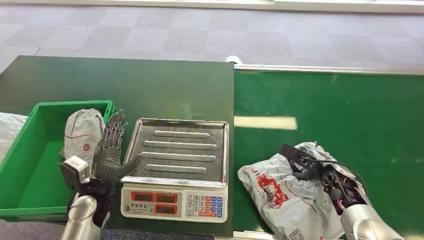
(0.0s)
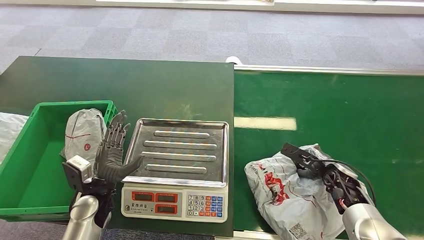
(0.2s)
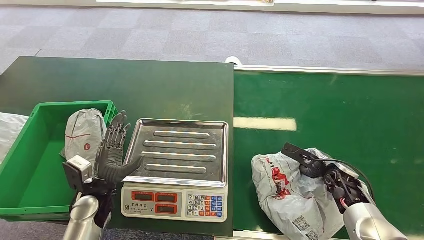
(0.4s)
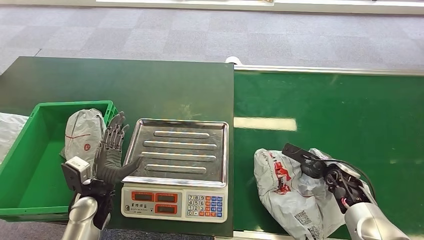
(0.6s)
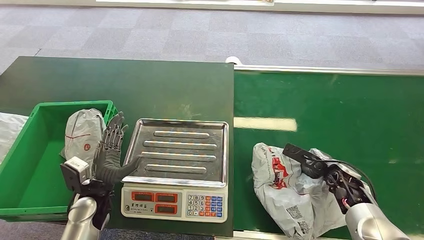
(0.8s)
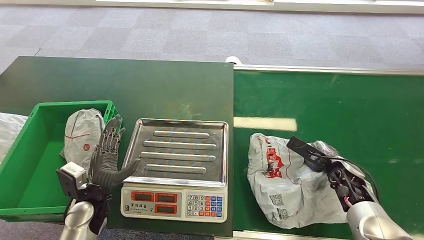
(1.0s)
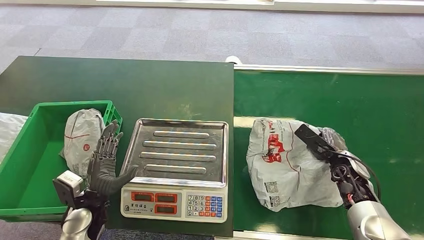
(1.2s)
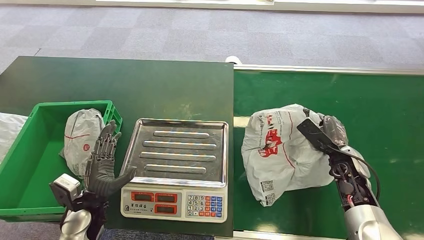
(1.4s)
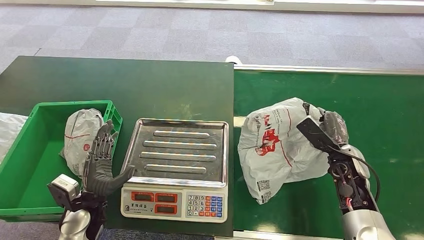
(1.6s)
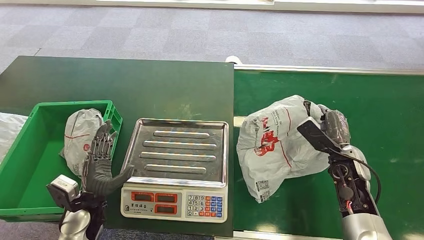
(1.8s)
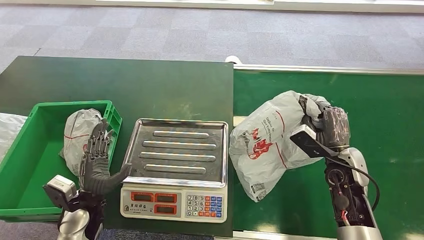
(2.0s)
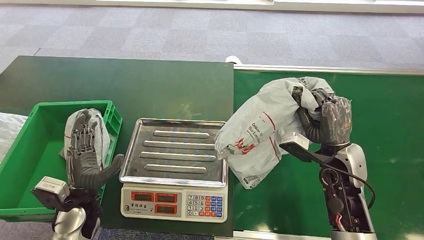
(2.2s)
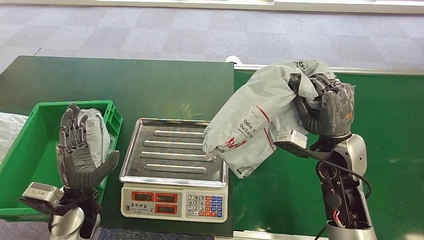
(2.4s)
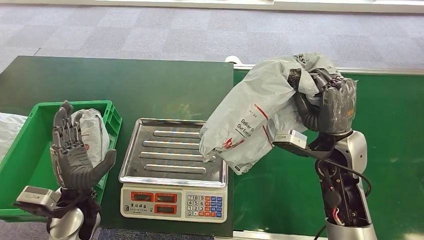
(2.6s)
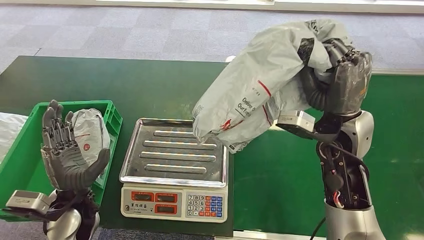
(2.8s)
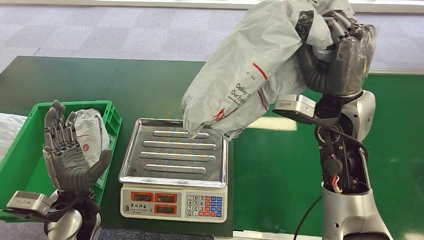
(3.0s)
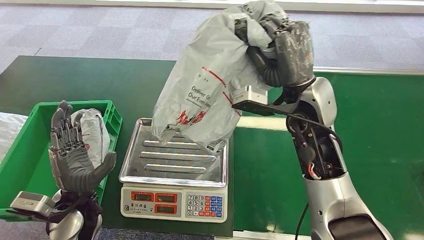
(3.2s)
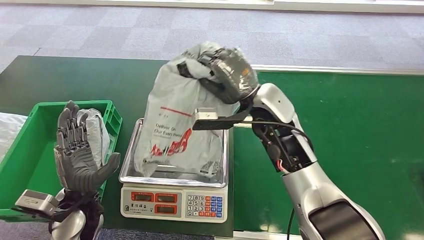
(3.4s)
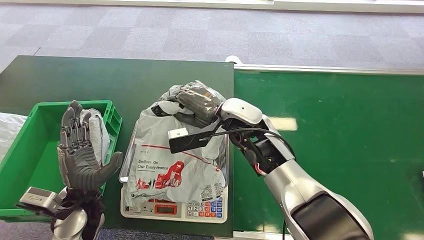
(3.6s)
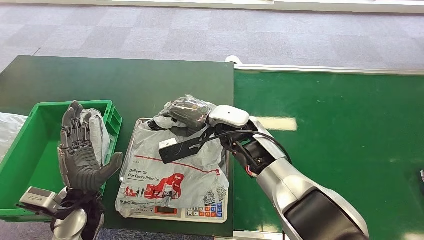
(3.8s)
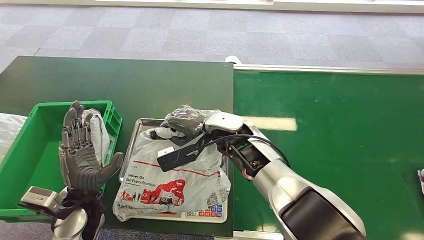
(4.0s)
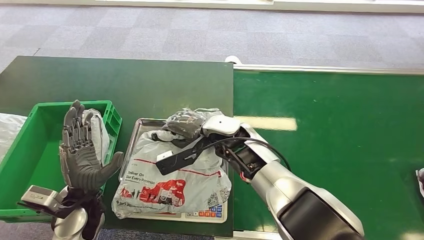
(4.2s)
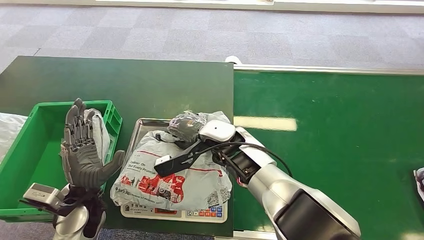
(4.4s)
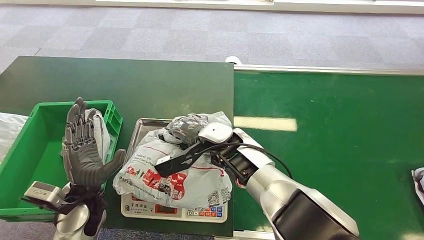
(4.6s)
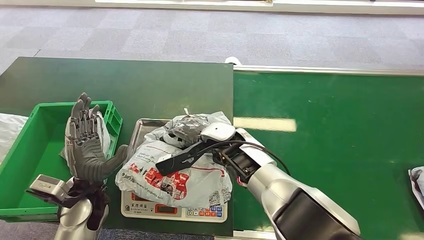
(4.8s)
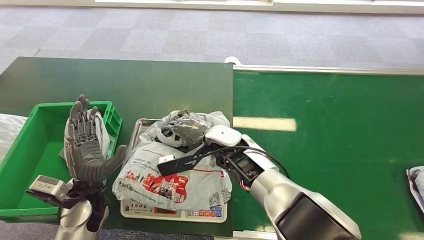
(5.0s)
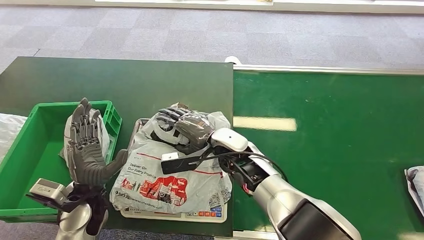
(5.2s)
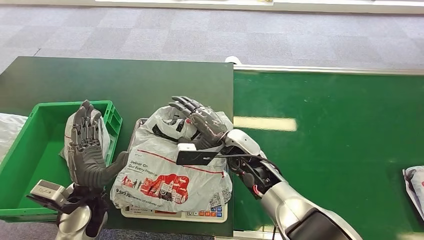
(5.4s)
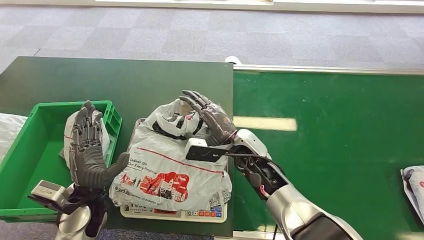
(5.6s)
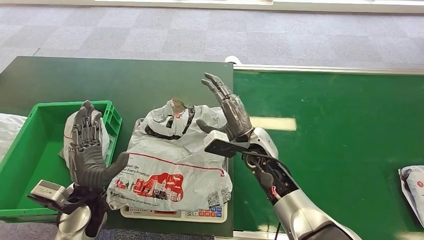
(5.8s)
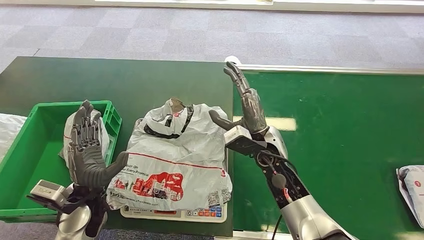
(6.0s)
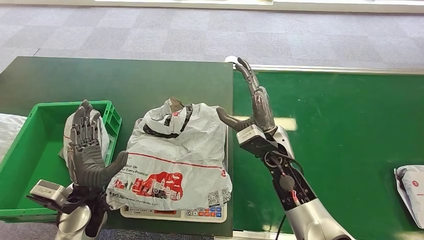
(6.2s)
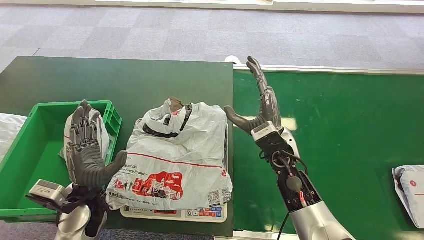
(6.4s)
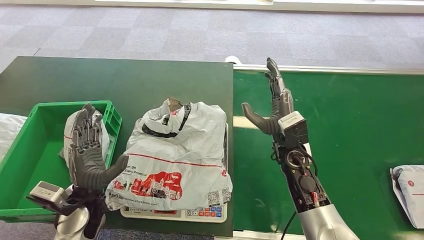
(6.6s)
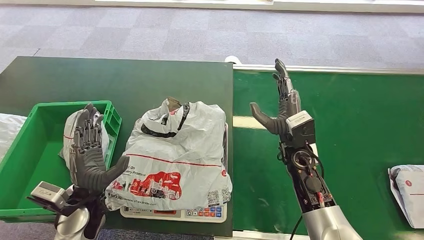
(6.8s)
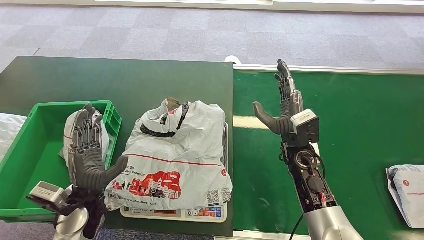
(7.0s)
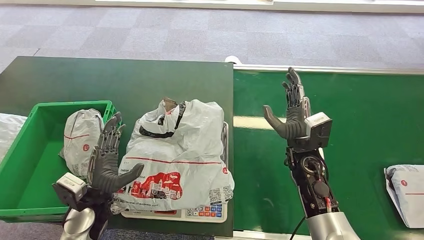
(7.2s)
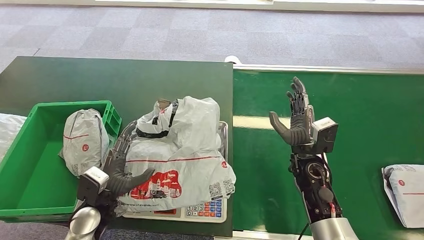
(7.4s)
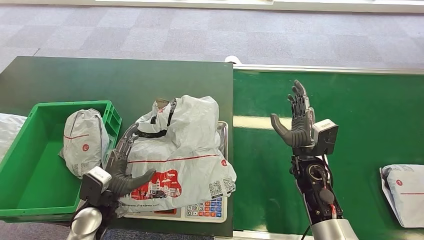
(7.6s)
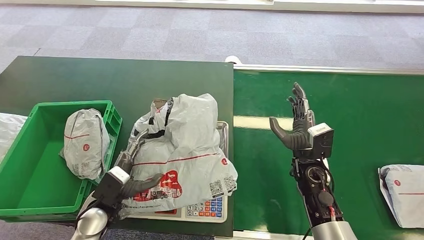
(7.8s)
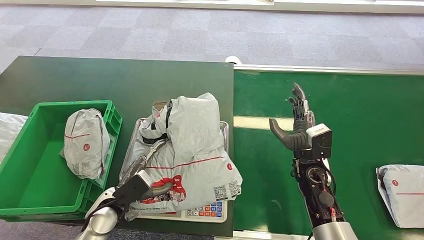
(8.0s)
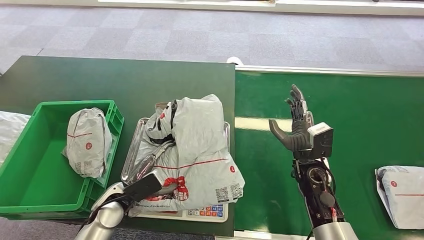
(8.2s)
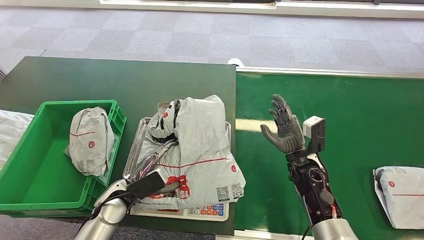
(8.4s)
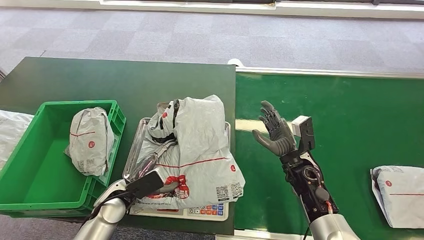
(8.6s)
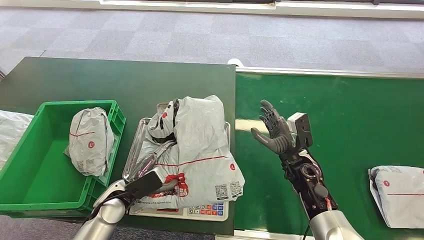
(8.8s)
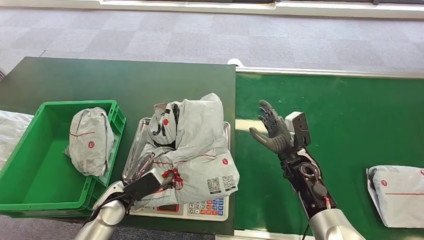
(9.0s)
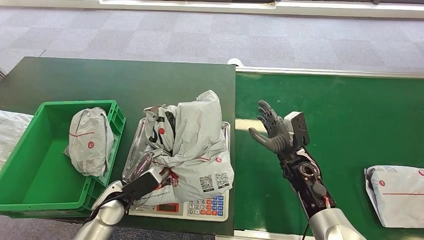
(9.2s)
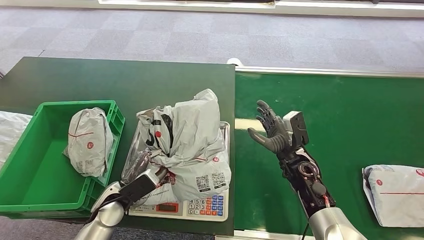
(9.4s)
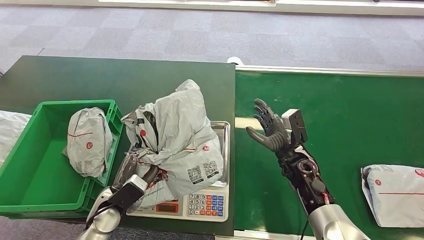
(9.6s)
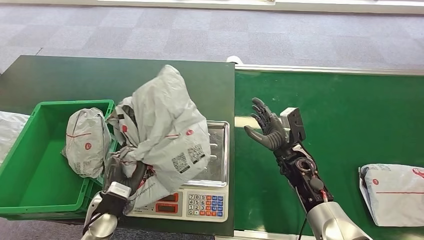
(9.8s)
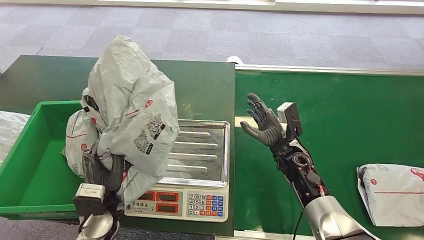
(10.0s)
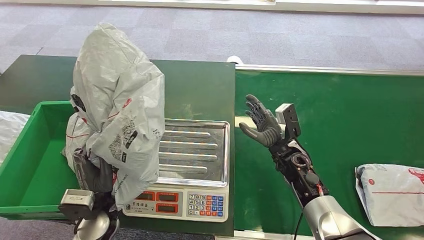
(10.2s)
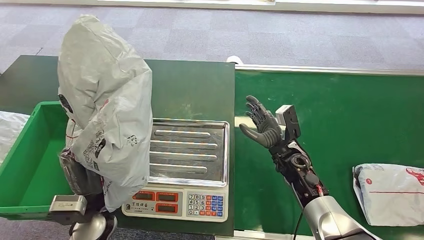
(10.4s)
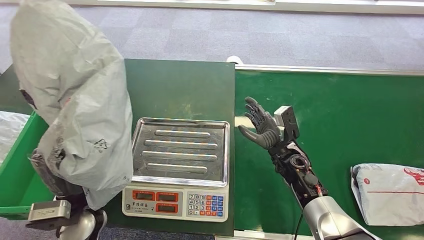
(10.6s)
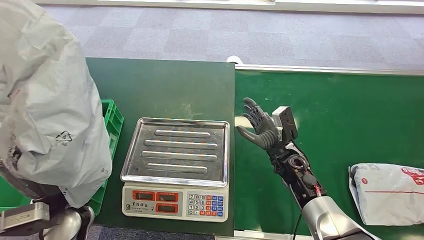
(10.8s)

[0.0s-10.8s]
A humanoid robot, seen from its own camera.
Step, 0.0s to 1.6s: Pick up the package from the conveyor belt.
Step, 2.4s to 4.4s: Place the package onto the inbound machine.
Step, 7.6s to 10.2s: Pick up the package from the inbound machine.

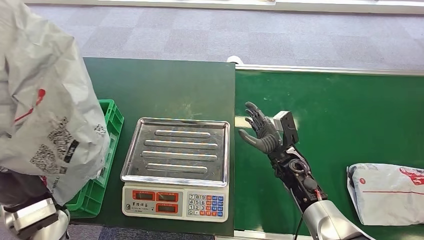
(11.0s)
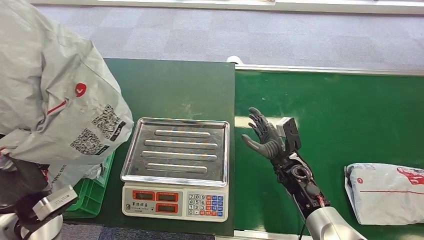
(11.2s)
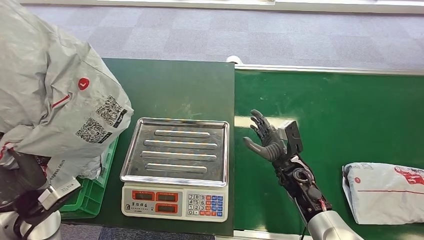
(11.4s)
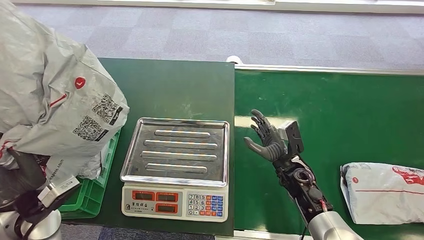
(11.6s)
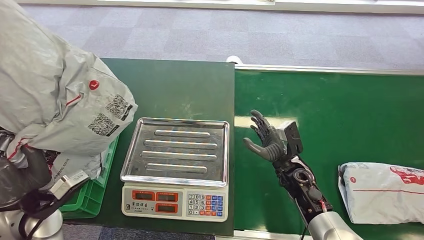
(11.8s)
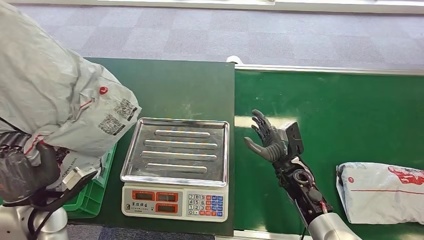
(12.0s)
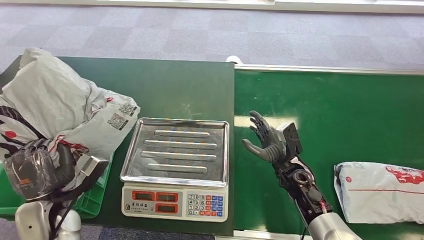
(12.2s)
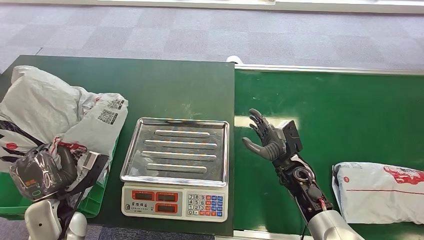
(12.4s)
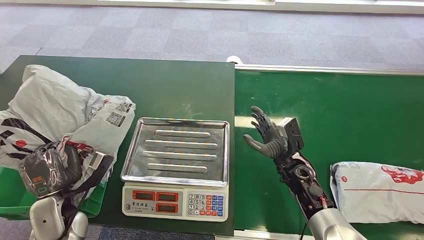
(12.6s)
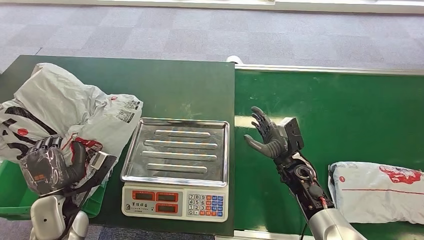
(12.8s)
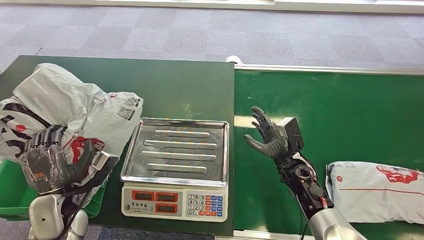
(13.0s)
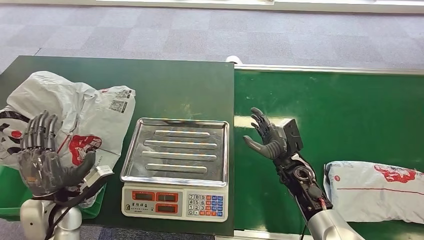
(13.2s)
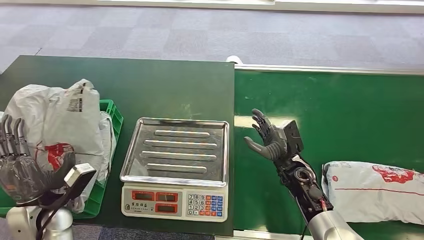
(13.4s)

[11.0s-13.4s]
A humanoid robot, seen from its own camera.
Step, 11.0s to 13.2s: Place the package into the parcel locker.
12.2s to 13.4s: The hands make only small movements.
